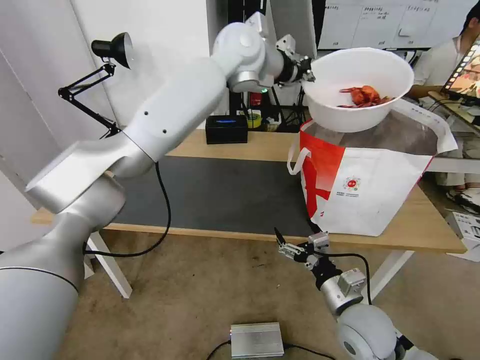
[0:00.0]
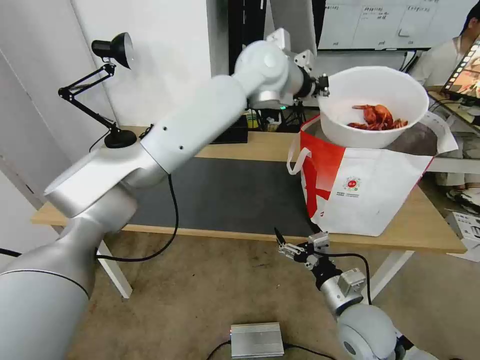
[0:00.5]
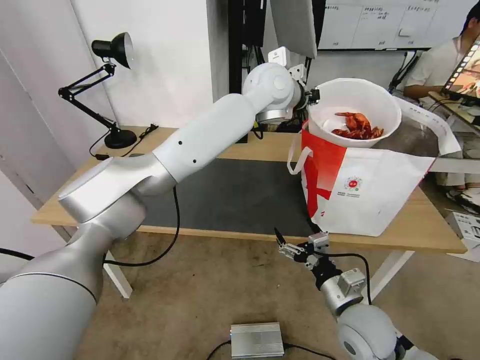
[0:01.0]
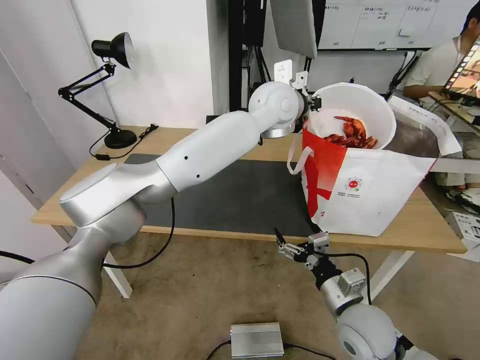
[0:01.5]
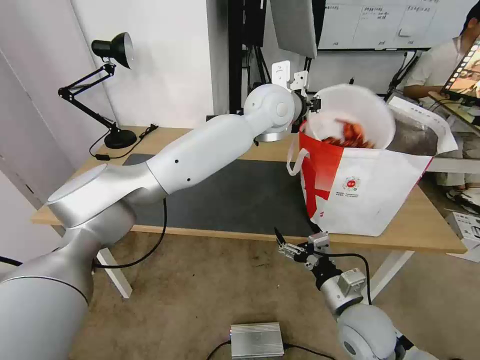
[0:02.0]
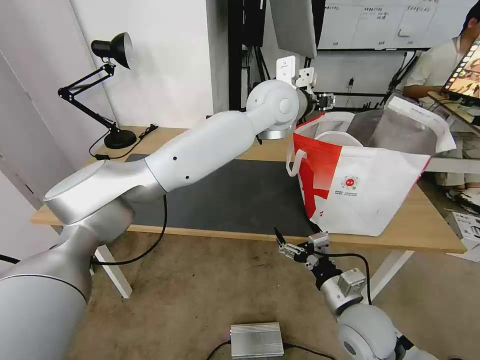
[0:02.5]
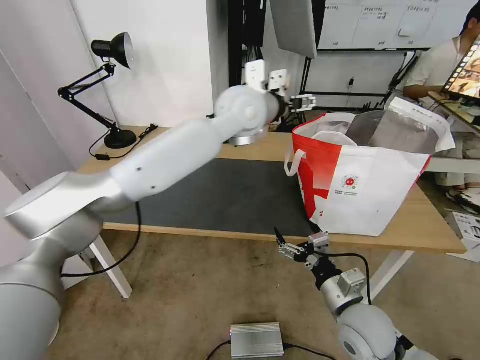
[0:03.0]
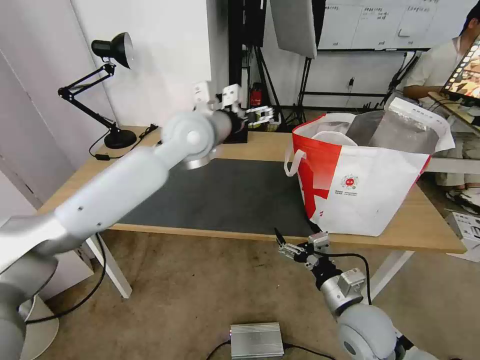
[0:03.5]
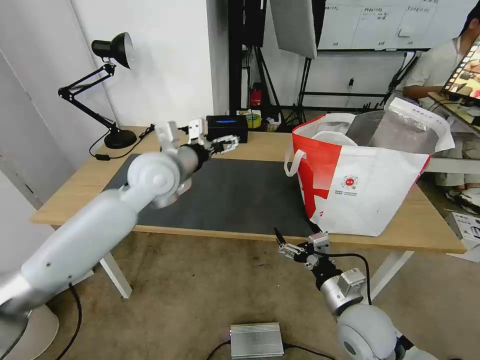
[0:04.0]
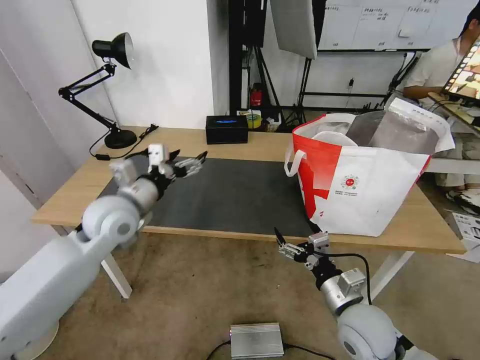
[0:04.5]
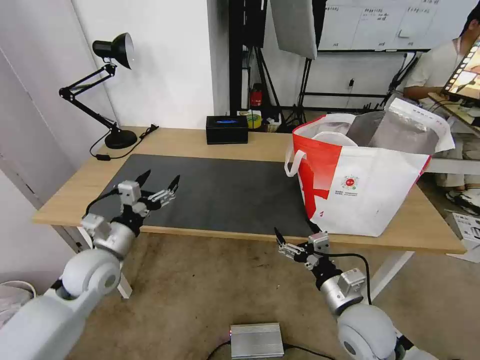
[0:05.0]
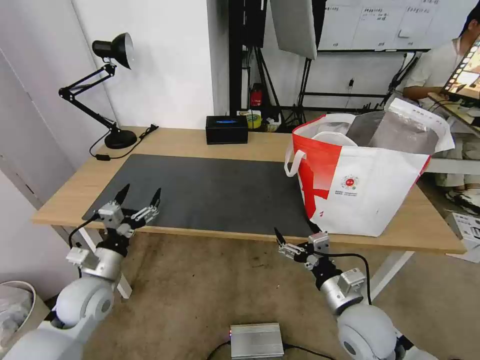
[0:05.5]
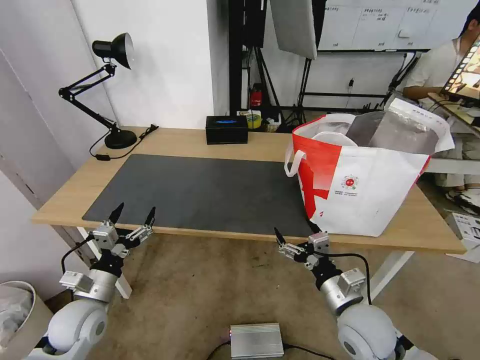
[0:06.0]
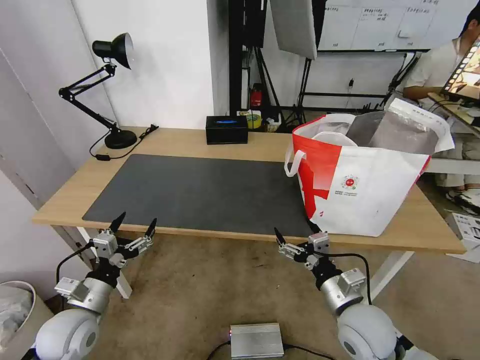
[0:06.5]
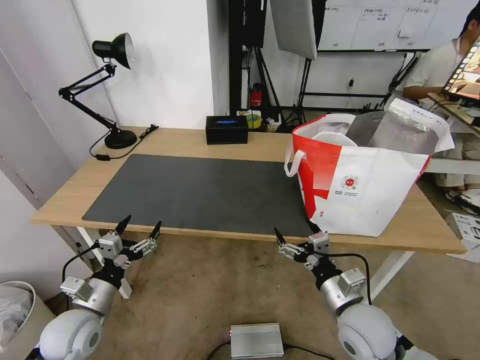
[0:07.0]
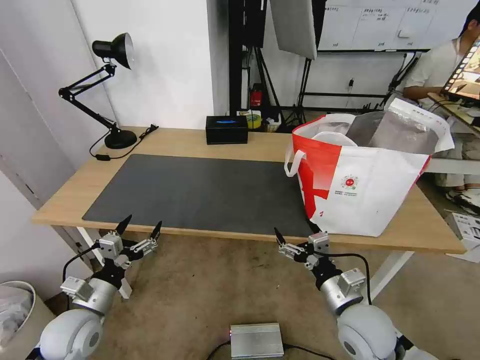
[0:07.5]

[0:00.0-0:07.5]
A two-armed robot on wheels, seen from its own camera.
Task of the whole recording: Pick up the trash from the table and place it into the takeout bag.
0:00.0 to 0:02.0: The left gripper moves downward and to the right, some 10 cm.
0:02.0 to 0:04.0: The left gripper travels to the left, backward and downward by approximately 25 cm, and opens.
0:04.0 to 0:05.5: The left gripper shifts about 30 cm downward, backward and to the left.
0:05.5 to 0:07.5: The left gripper shifts some 5 cm backward.
